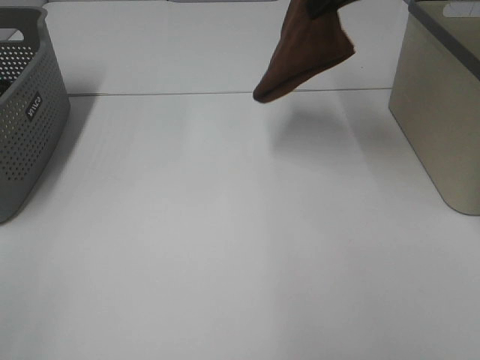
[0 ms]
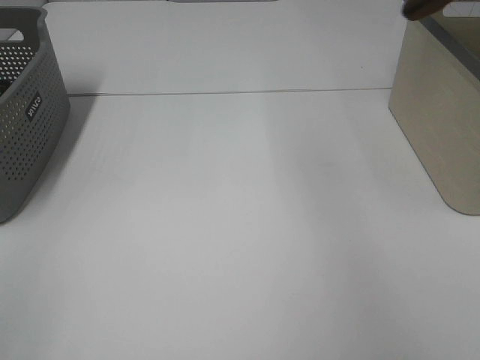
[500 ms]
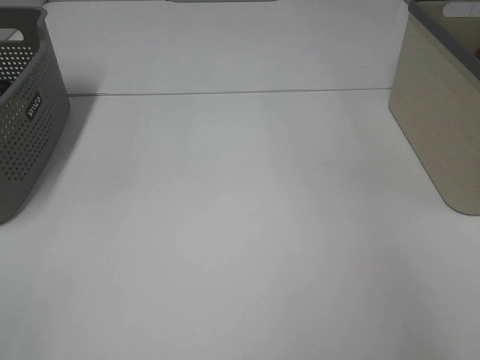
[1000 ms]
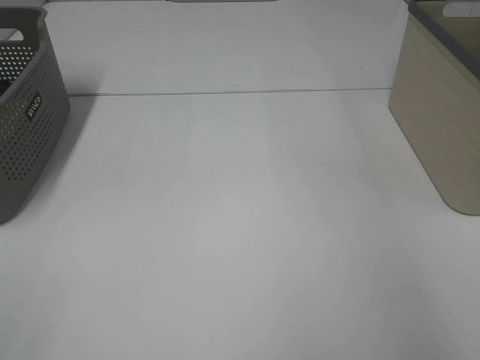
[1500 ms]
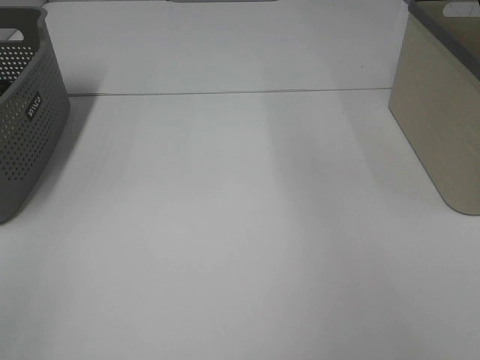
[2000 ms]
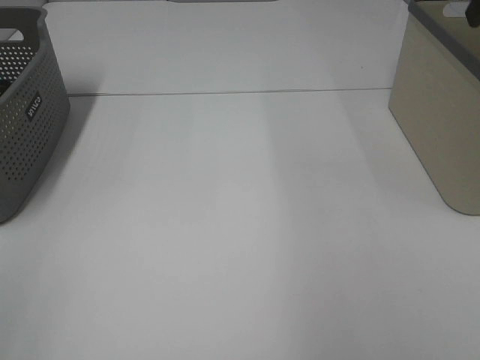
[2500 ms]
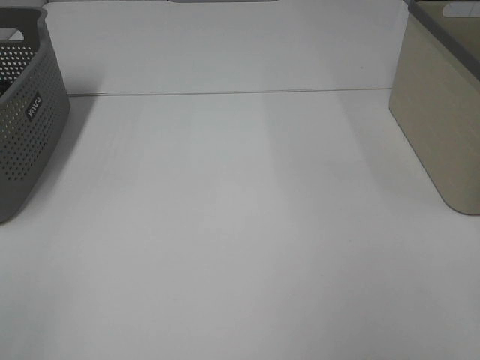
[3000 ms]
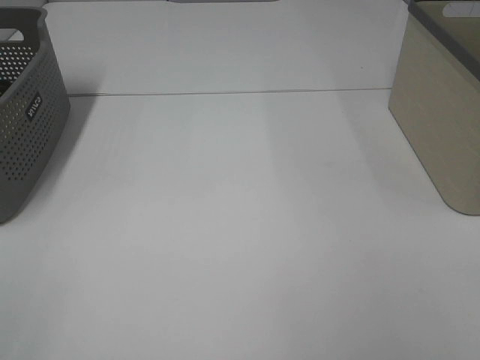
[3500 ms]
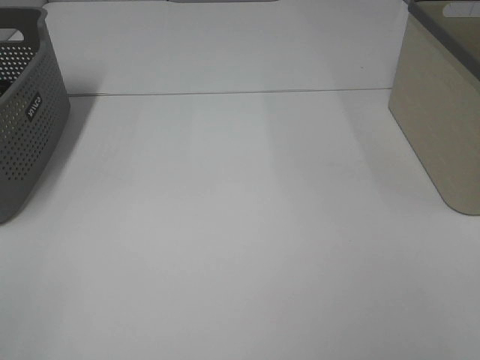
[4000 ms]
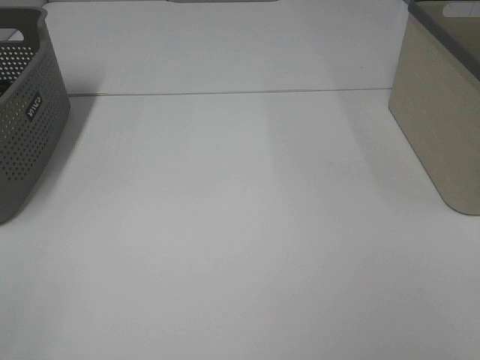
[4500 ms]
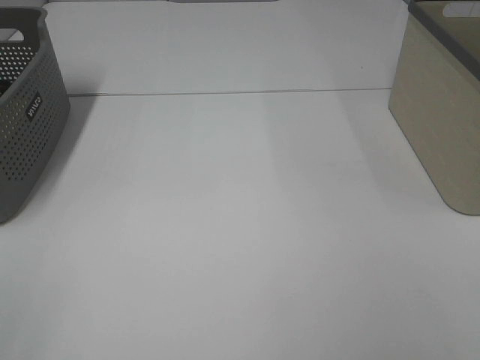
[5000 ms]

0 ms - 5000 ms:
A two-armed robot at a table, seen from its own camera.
Step, 0 ms - 1500 ms: Right hand: place the brown towel in right basket.
0 ms - 2500 ms: The right gripper heads backward and to the right, covering about 15 cm, and opens its fingers.

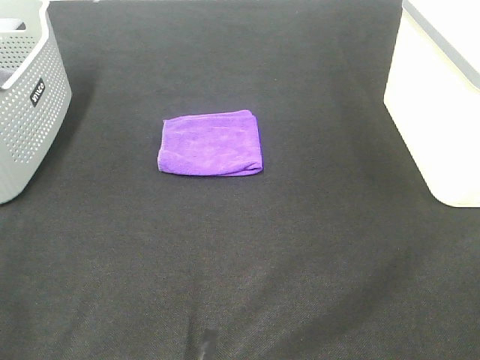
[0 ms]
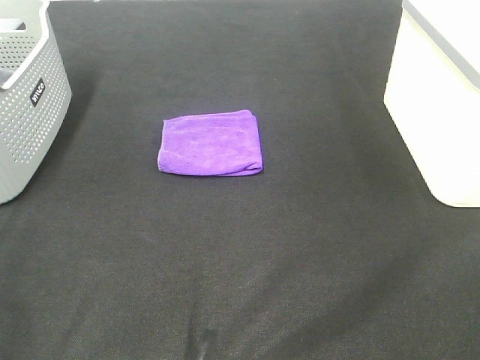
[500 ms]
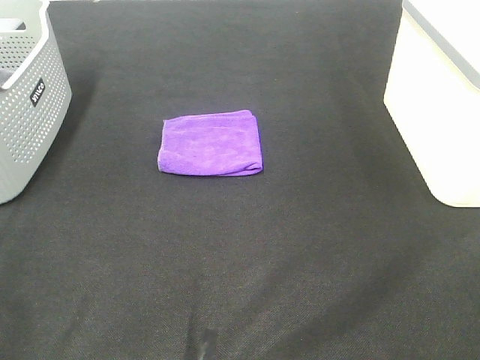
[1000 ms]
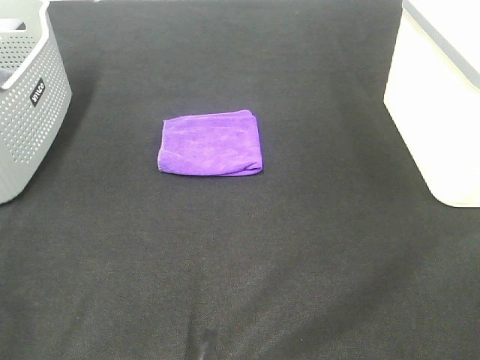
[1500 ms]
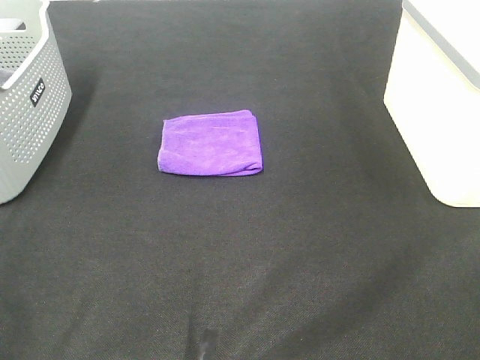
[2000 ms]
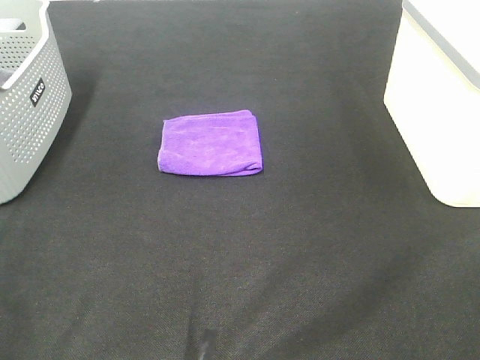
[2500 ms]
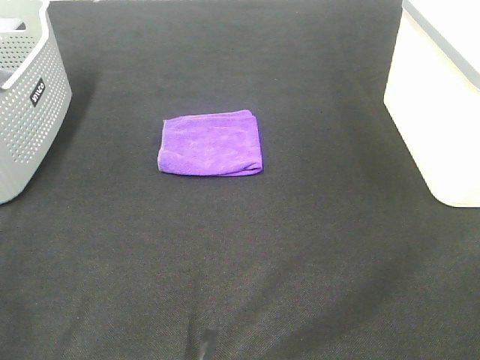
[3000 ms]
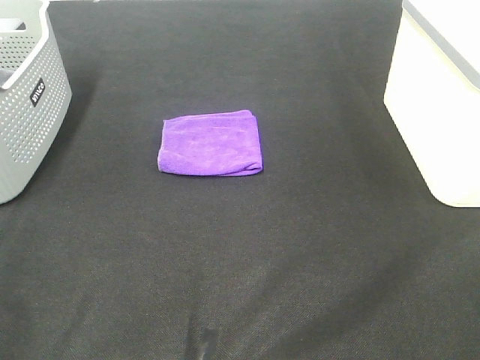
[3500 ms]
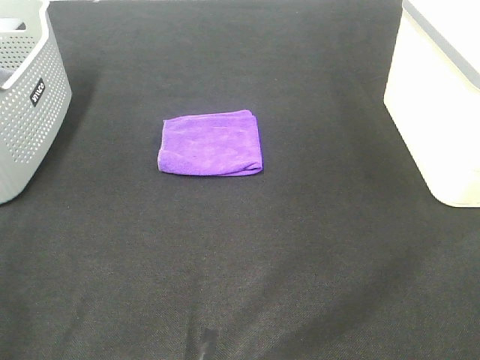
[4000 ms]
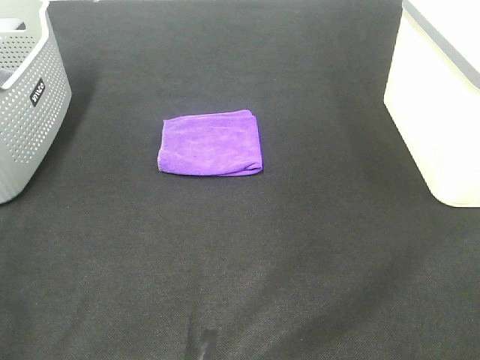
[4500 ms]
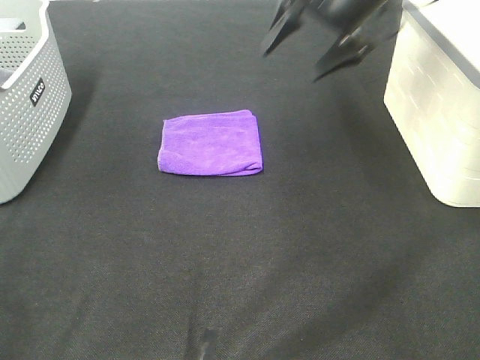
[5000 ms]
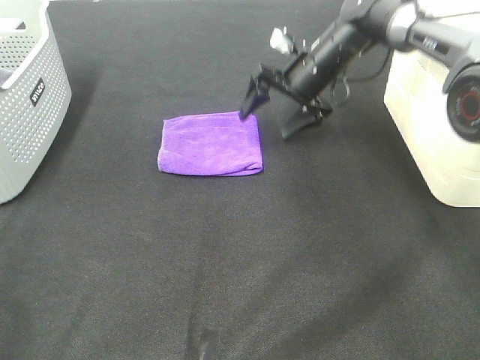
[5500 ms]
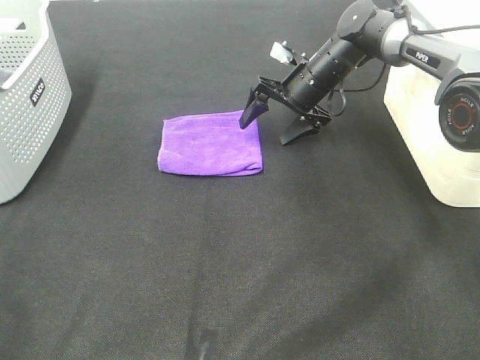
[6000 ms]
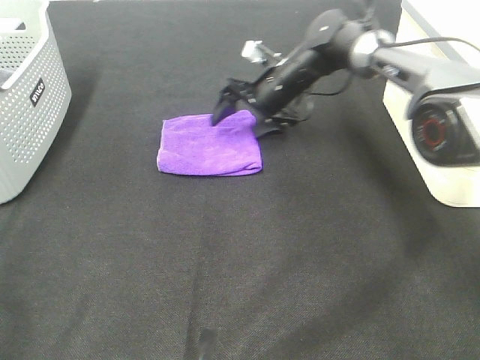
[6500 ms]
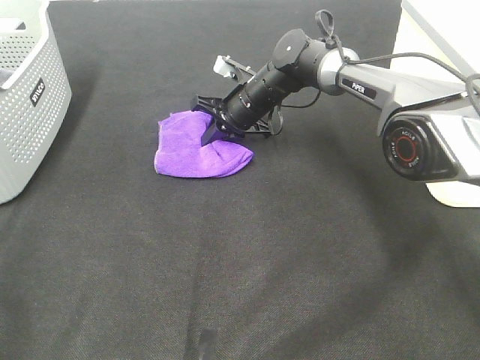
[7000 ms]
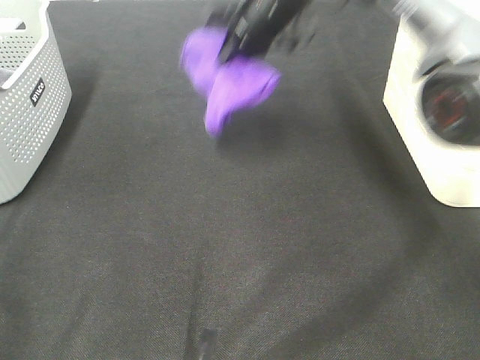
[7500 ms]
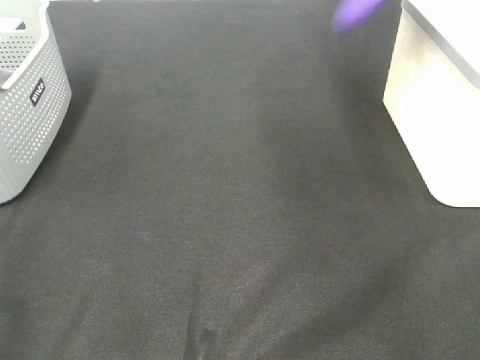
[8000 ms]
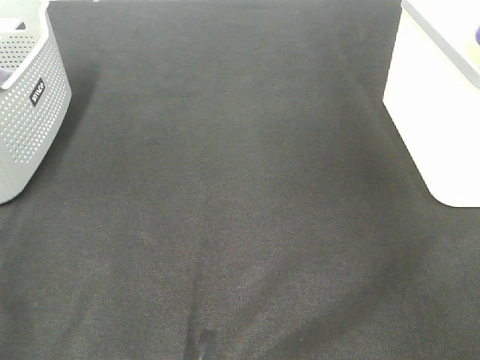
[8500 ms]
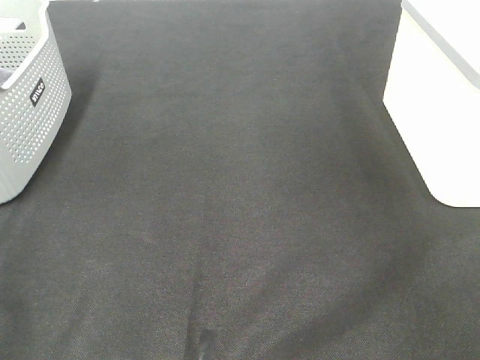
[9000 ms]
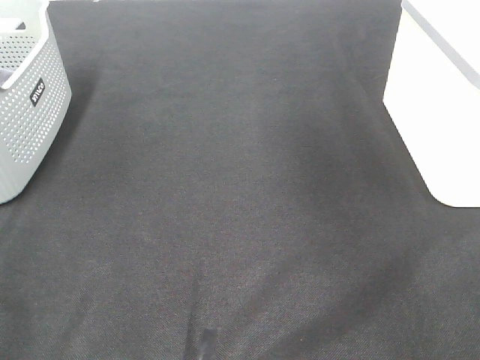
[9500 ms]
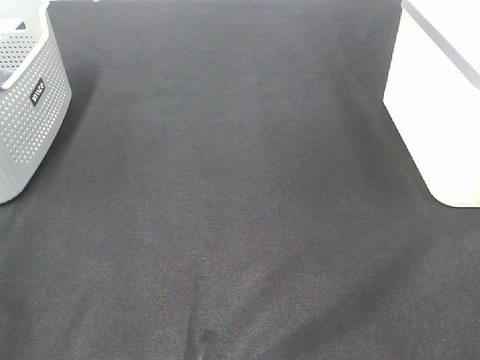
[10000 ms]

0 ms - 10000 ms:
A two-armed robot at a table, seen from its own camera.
Step, 0 ms - 7000 ms: Right hand: grab the folded purple towel.
Step, 7500 ms - 9000 ms: Right hand: place the purple towel in right basket.
0 ms - 2000 ms: Both grippers stay about where they are.
4000 ms - 6000 ms: The right gripper shifts about 50 cm forward, downward and to the left.
6000 ms - 8000 ms: The right gripper shifts roughly 35 cm upward and to the right, and closes.
8000 ms - 10000 ms: The right gripper moves to the left, roughly 10 cm, and opens.

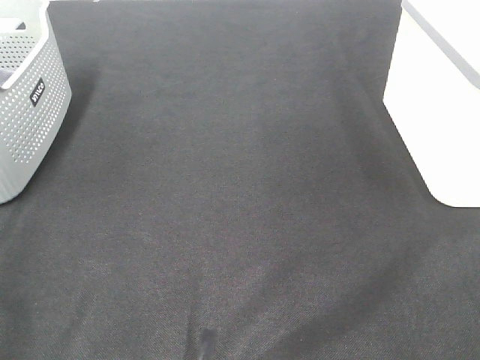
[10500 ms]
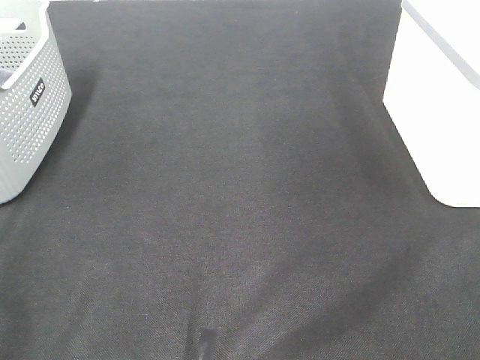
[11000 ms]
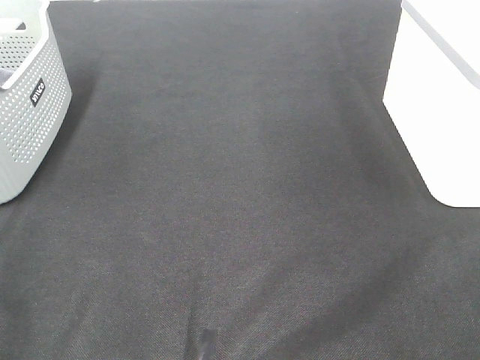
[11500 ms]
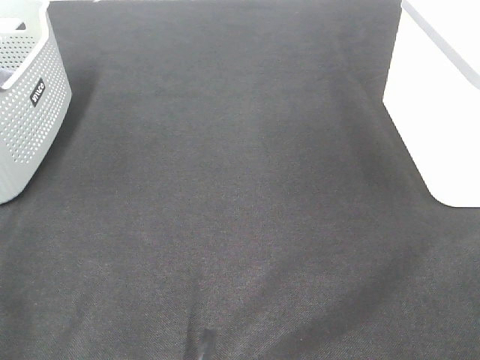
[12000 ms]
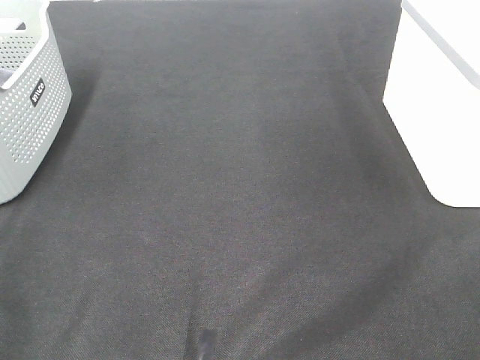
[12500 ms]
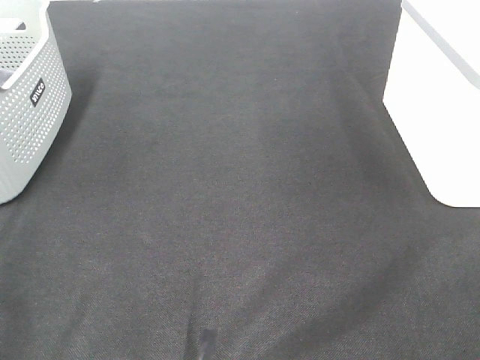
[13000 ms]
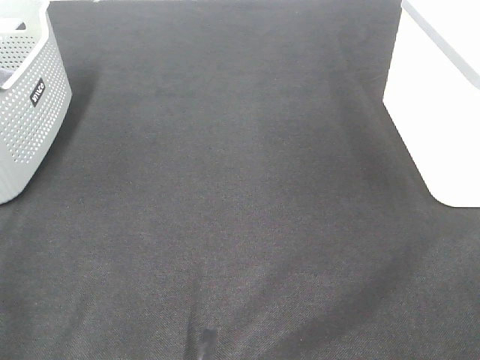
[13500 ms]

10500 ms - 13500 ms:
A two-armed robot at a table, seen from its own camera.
12000 ms - 13500 ms: Both grippers stay put.
